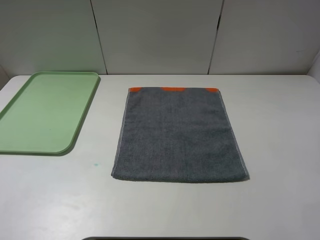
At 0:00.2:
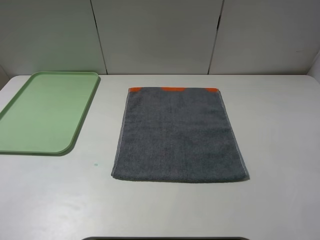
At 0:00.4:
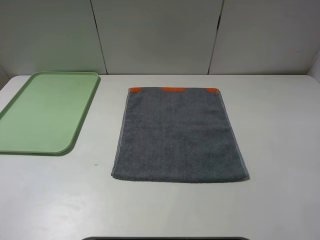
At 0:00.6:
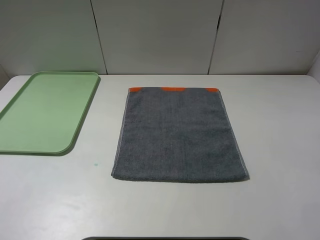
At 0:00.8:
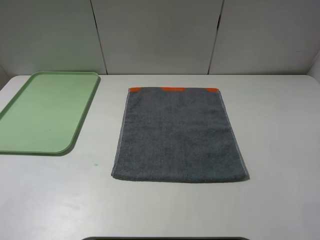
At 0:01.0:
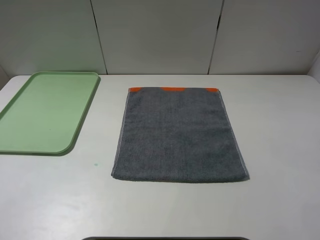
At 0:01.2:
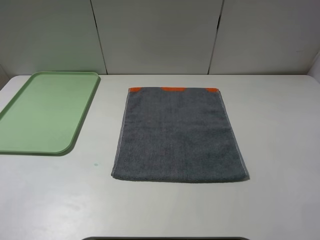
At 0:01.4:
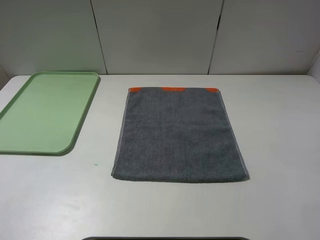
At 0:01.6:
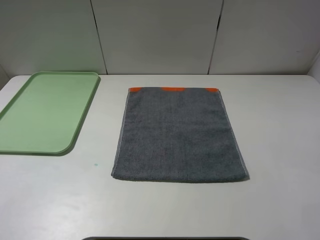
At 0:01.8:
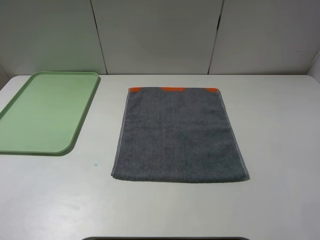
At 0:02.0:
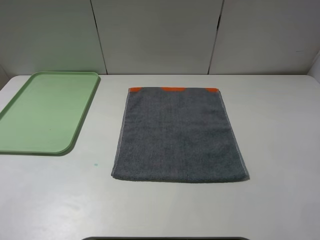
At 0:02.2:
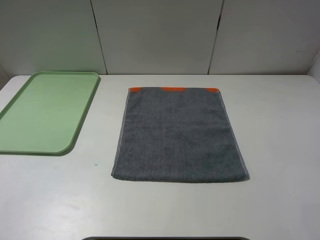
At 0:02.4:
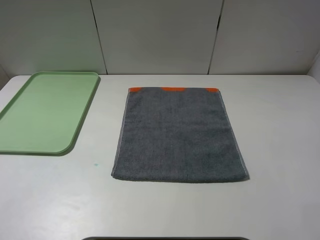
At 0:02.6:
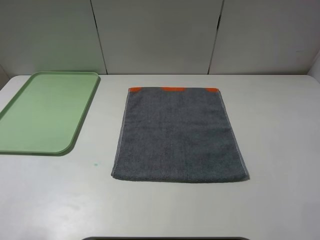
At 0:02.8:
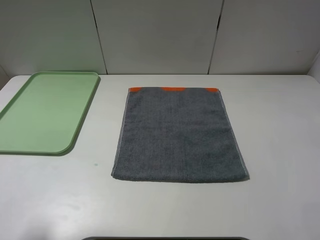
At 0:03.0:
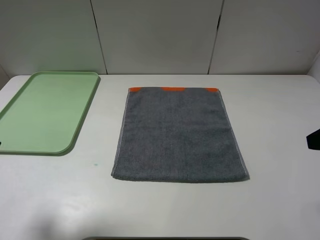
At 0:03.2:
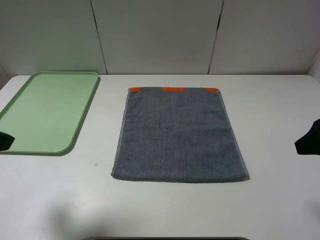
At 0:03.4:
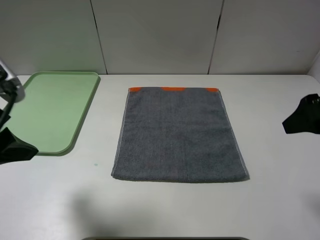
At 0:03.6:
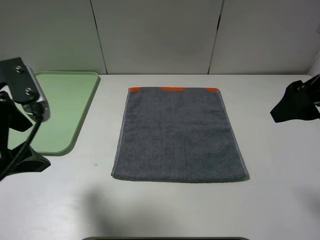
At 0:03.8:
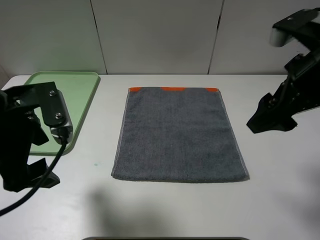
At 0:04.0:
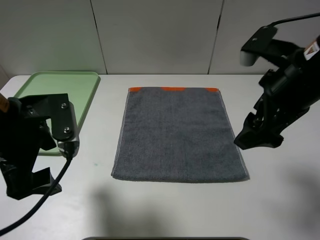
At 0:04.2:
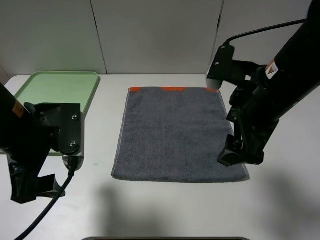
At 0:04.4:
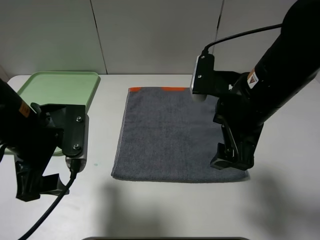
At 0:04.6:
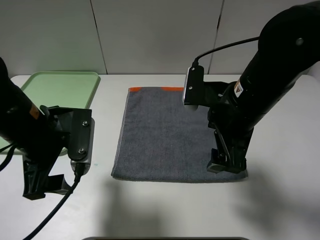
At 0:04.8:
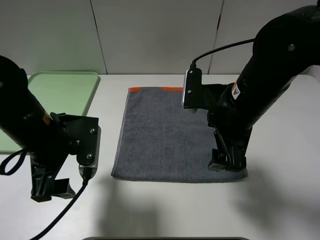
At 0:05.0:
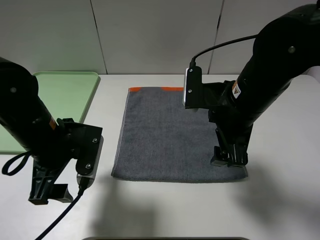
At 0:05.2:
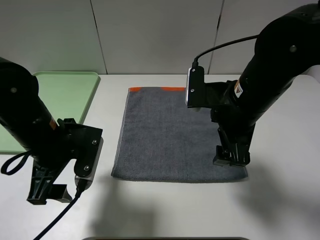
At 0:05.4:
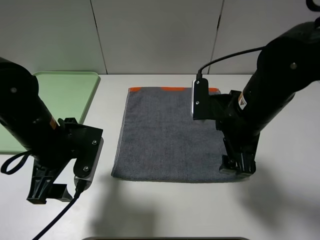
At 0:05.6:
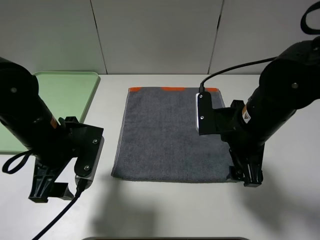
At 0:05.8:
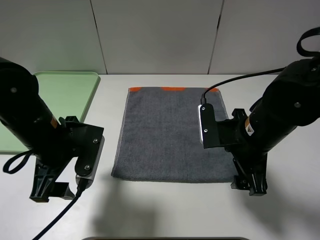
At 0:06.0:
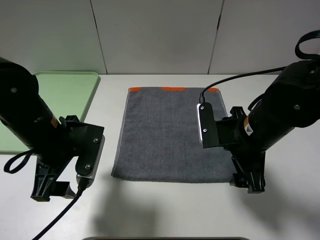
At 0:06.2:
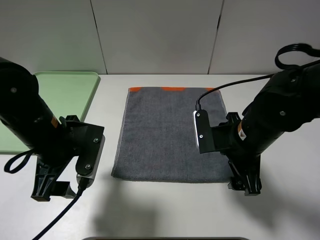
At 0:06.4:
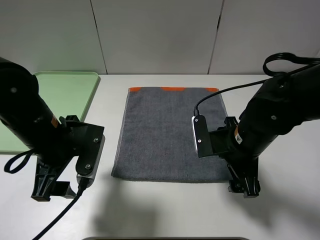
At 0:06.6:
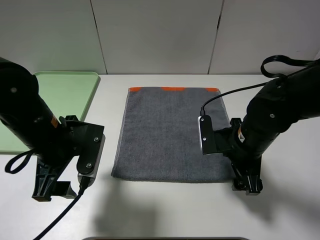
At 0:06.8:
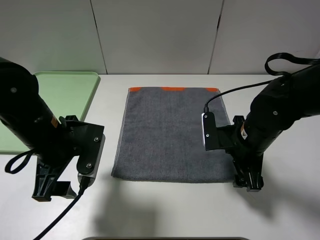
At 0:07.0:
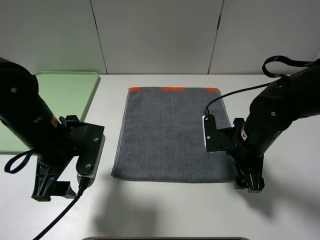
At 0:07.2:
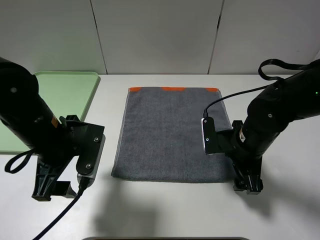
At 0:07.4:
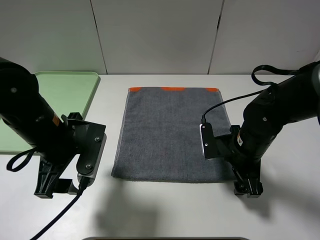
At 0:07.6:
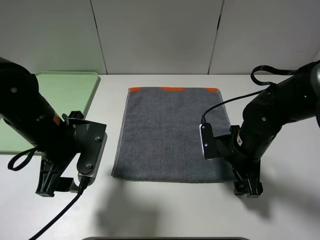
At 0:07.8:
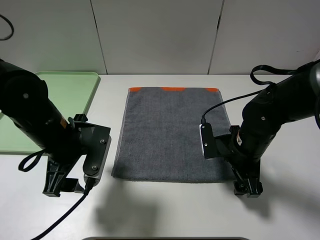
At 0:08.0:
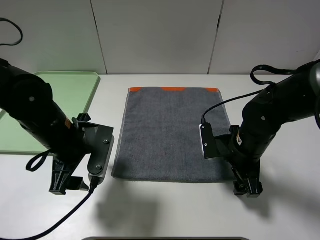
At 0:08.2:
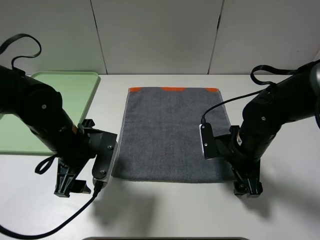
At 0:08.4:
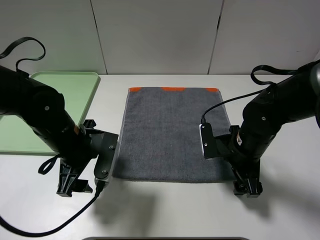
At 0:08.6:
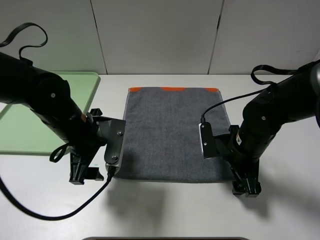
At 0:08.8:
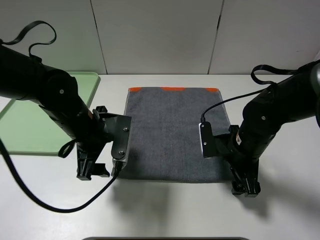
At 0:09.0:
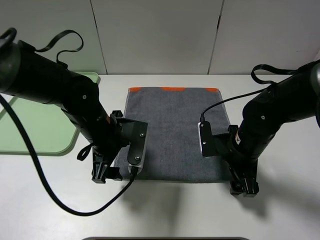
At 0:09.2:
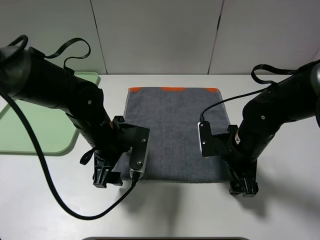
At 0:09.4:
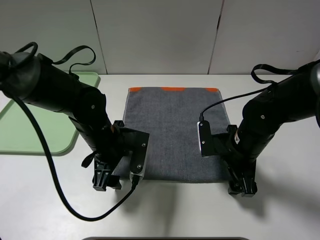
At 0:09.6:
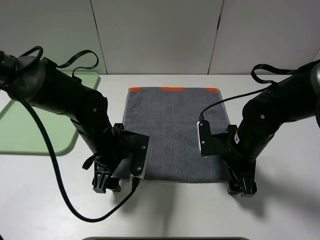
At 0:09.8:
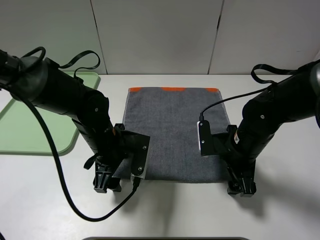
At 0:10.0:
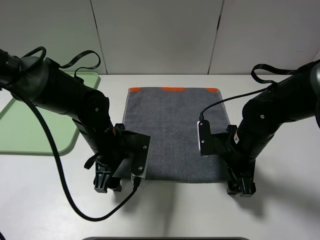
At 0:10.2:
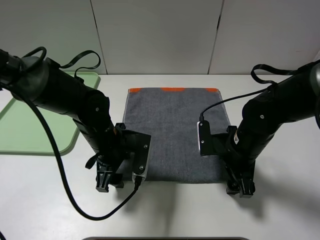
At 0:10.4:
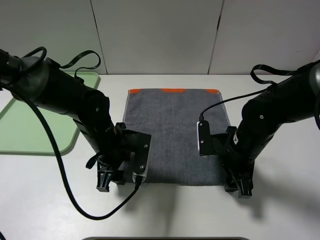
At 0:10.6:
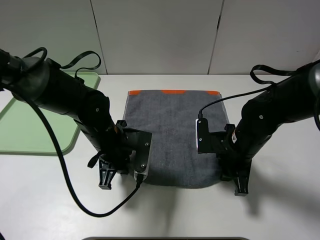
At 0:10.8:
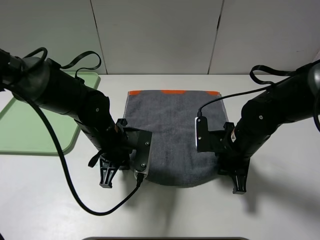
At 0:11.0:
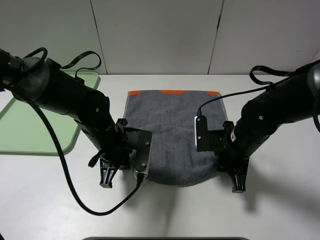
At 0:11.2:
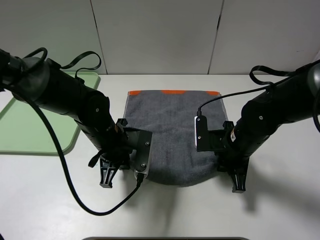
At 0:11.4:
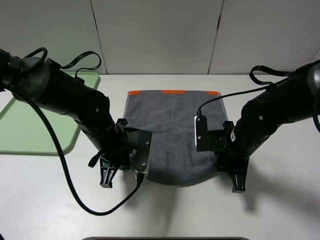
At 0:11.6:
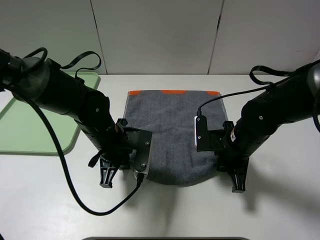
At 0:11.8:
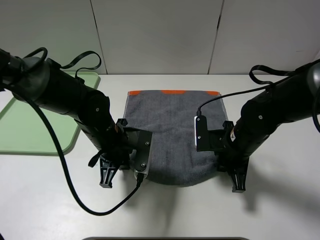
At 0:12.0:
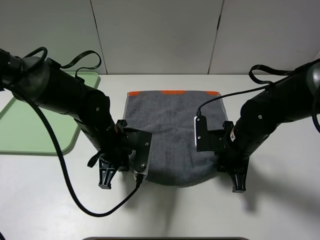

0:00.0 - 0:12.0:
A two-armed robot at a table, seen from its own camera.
0:00.0 - 0:01.6: Both grippers stay put.
0:01.6 - 0:03.0: Both grippers move forward, some 15 cm.
0:03.0 - 0:04.4: The right gripper goes about 20 cm to the left and forward. Meanwhile the left gripper goes roughly 15 cm to the right, downward and forward.
0:04.4 - 0:06.0: The right gripper is displaced downward by approximately 5 cm.
0:06.0 - 0:07.6: The right gripper shifts some 5 cm downward.
0:07.6 - 0:09.0: The left gripper goes approximately 5 cm to the right.
0:09.0 - 0:10.4: The grippers make only small movements.
0:10.4 - 0:12.0: The left gripper closes its fingers. The right gripper closes.

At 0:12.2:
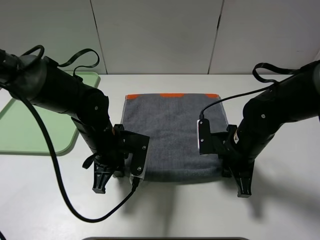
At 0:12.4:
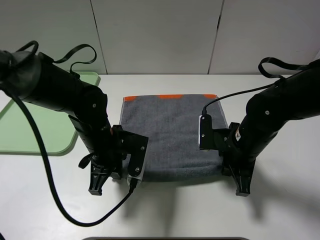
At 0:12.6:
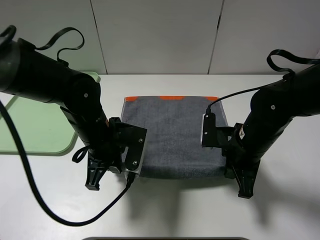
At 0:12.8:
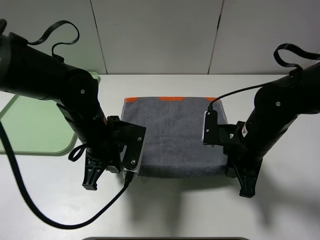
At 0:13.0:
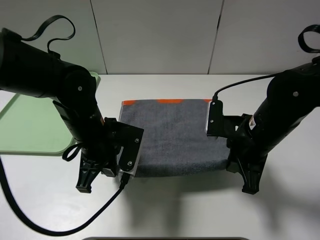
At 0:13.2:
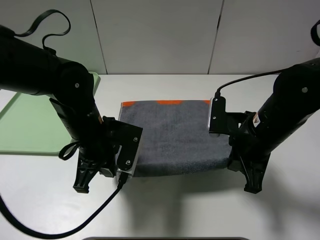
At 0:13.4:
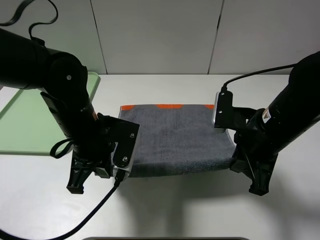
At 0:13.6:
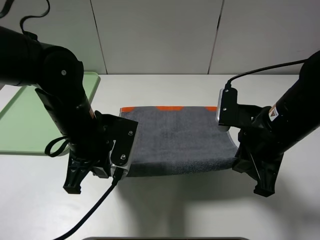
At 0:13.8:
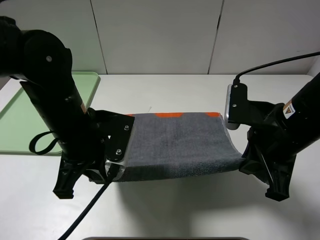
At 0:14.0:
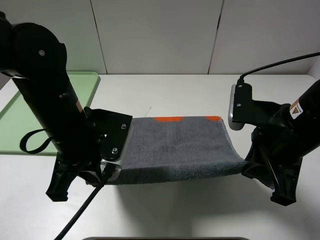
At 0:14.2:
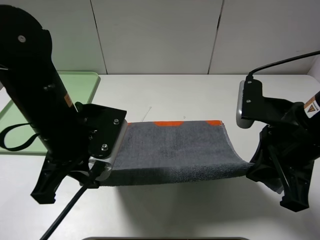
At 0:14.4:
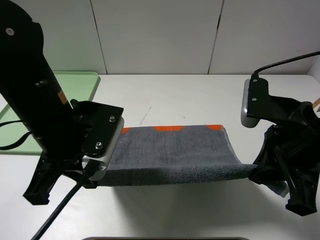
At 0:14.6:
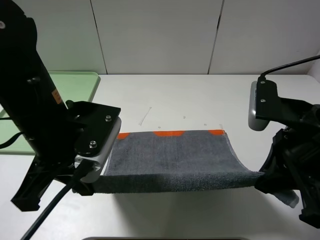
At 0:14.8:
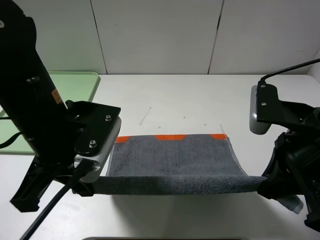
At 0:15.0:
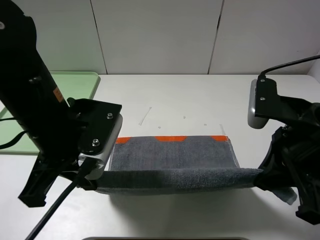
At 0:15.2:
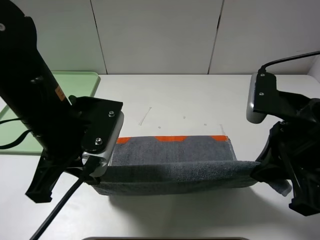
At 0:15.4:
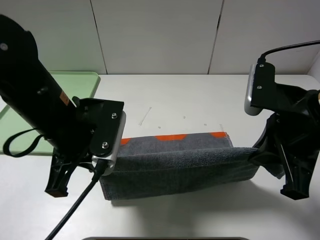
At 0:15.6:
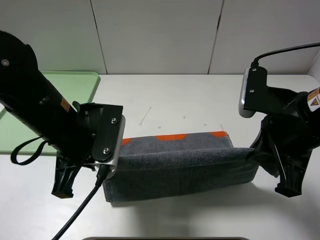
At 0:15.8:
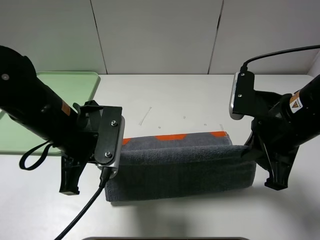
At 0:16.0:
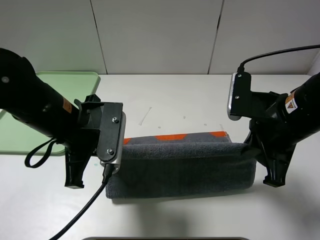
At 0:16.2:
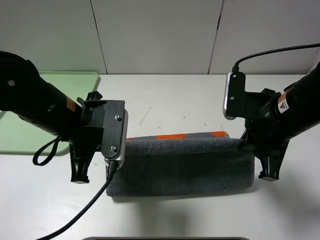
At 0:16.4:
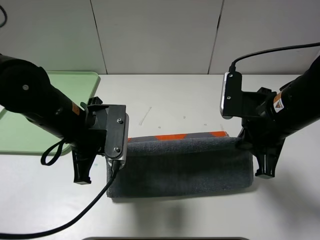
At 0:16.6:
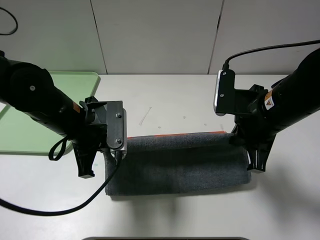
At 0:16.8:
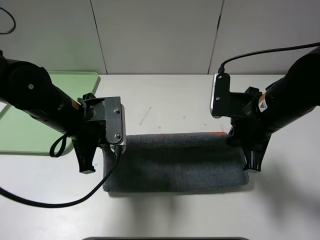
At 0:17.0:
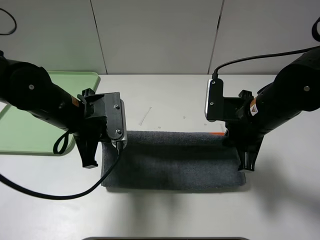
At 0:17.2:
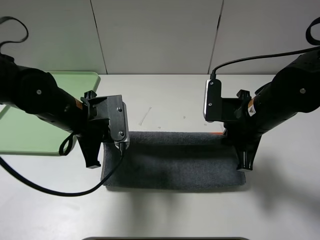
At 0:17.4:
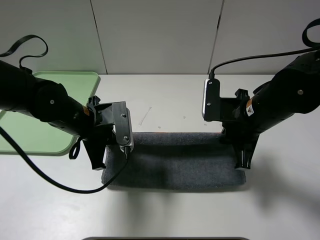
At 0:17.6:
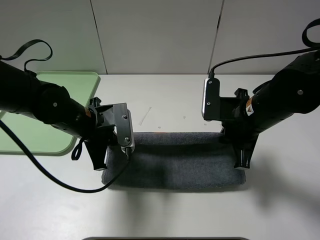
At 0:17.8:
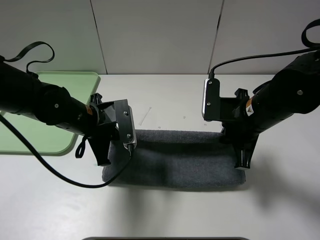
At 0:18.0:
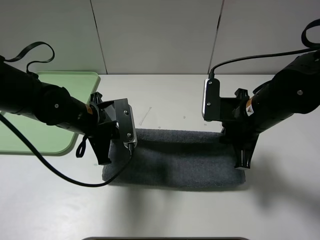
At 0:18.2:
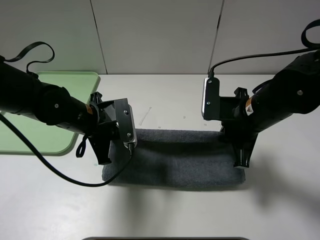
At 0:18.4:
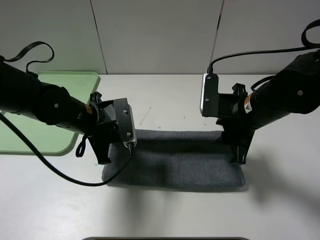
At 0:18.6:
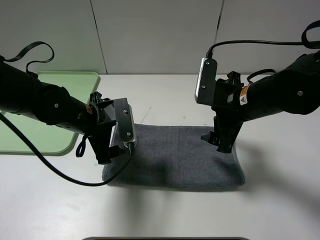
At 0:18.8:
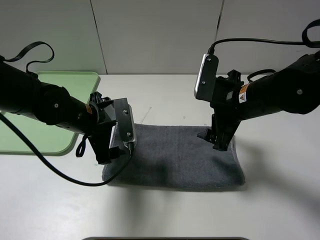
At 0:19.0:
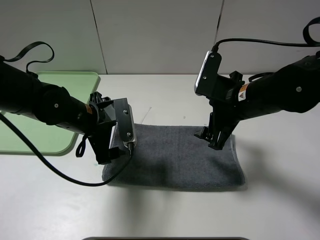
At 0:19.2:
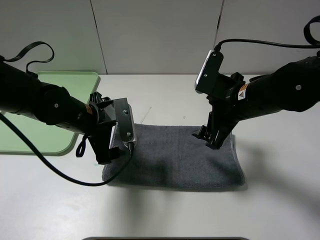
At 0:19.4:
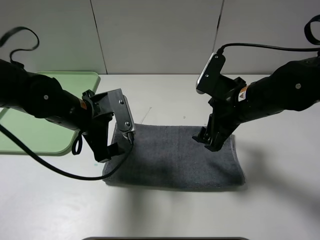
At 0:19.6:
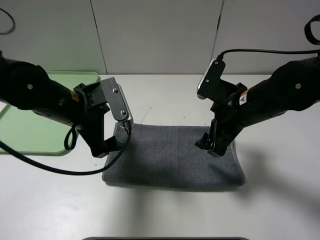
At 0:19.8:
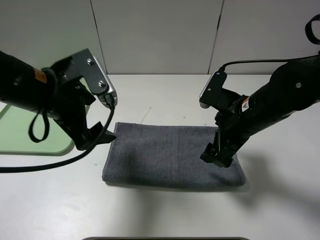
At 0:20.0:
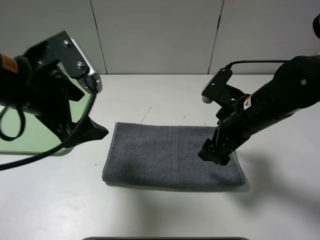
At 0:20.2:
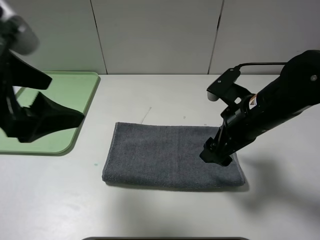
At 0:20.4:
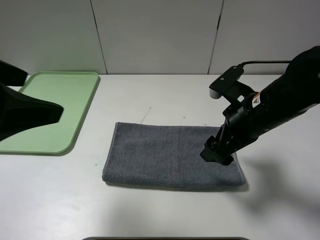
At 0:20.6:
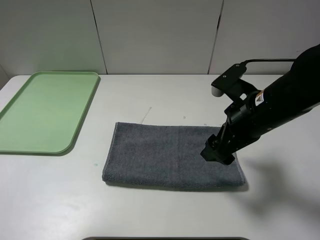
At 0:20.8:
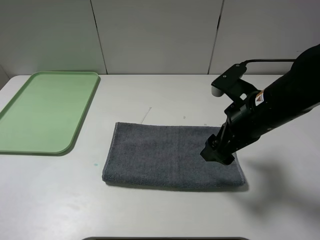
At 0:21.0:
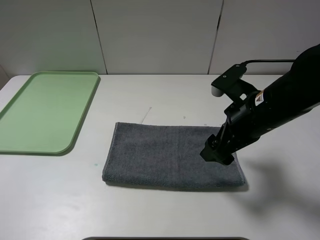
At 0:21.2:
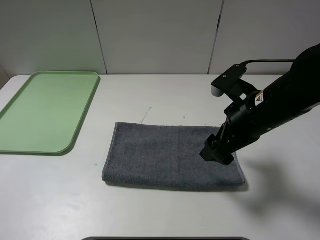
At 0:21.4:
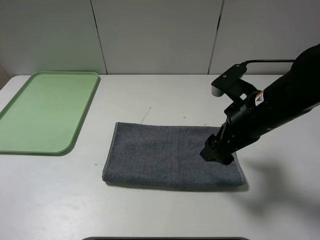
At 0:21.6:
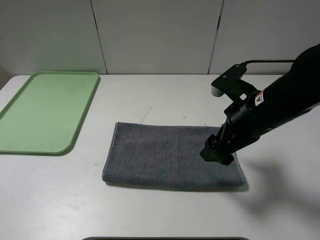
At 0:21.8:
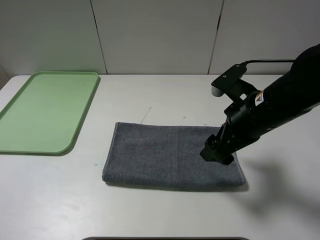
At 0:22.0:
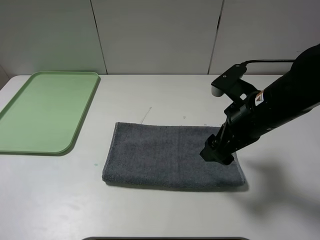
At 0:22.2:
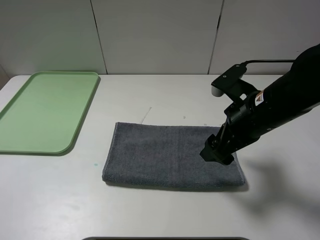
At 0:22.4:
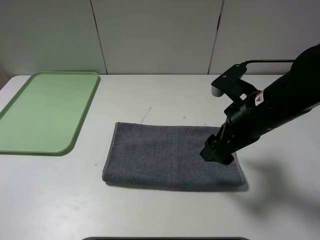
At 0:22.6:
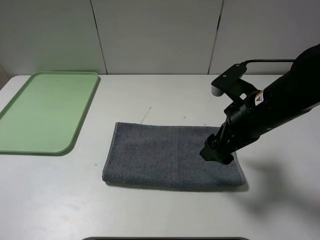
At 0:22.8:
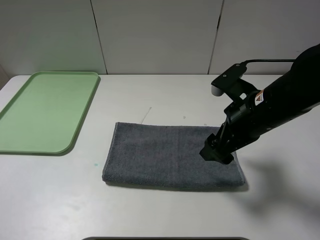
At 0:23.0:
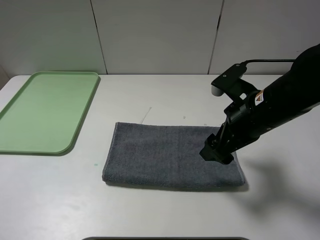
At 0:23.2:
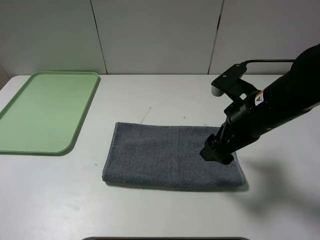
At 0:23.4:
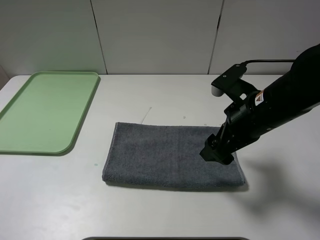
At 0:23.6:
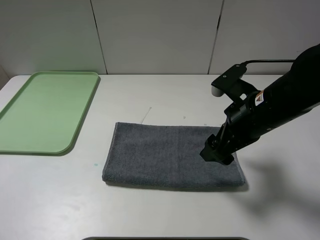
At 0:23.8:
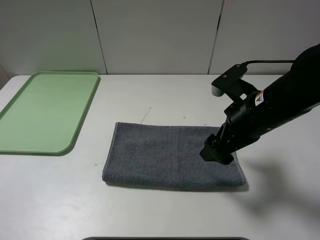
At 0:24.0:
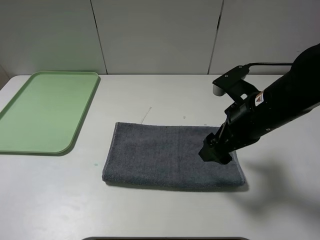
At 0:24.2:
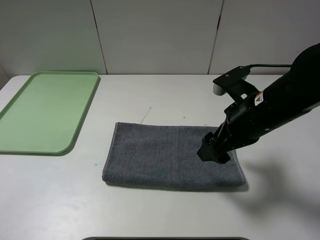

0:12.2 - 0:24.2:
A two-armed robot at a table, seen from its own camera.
Step, 0:12.2 - 0:19.4: Fold the grey towel upwards.
0:12.2 - 0:13.8: The right gripper shifts roughly 10 cm upward and backward; the left gripper is displaced upward by roughly 10 cm.
0:15.2 - 0:16.6: The right gripper goes some 5 cm forward. The left gripper is displaced downward by approximately 5 cm.
0:18.2 - 0:19.8: The left gripper is displaced upward by about 10 cm, and opens; the right gripper opens its fingers.
0:19.8 - 0:21.2: The left gripper is displaced backward and to the left by some 25 cm.
